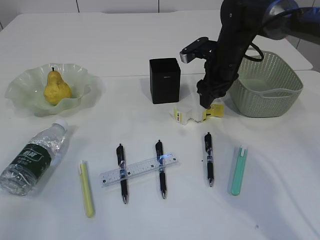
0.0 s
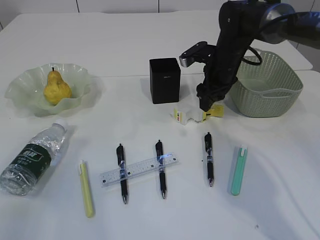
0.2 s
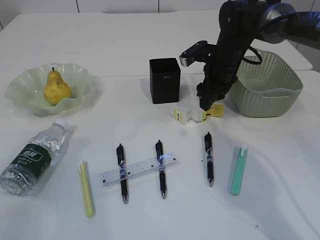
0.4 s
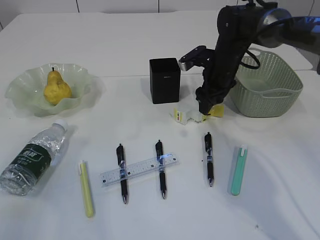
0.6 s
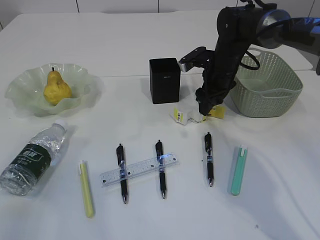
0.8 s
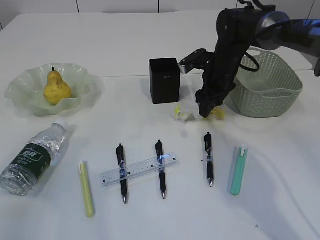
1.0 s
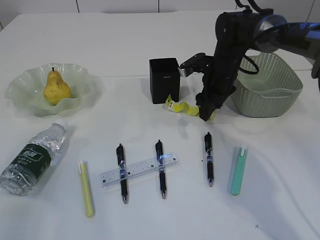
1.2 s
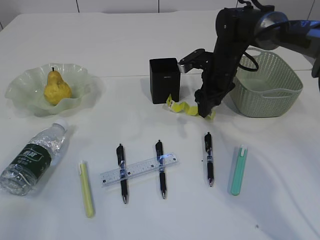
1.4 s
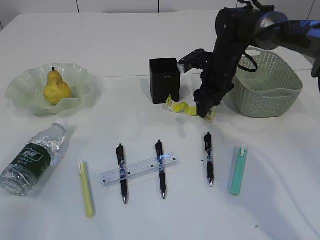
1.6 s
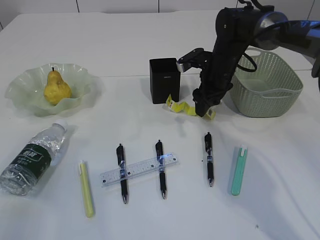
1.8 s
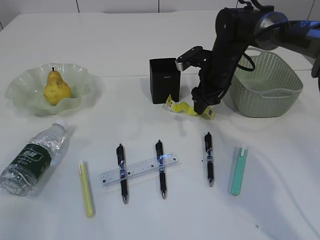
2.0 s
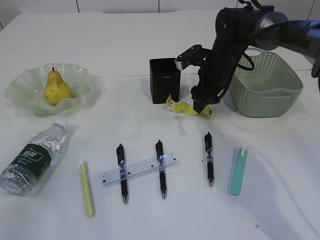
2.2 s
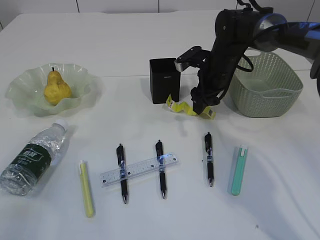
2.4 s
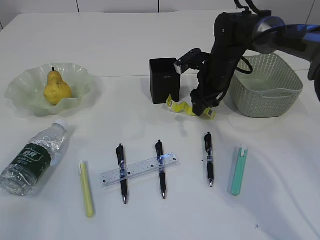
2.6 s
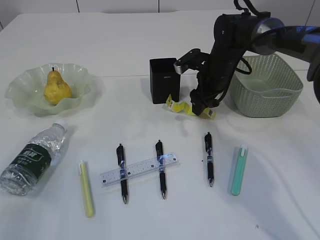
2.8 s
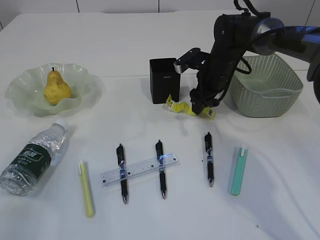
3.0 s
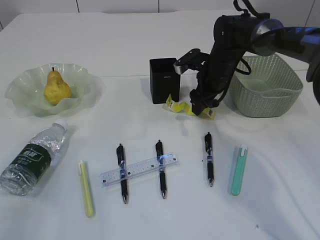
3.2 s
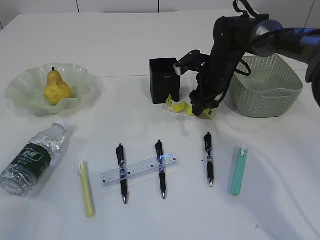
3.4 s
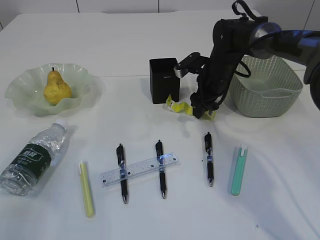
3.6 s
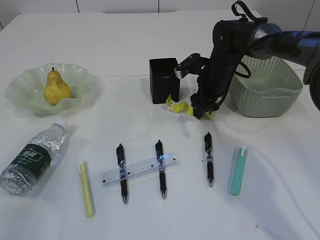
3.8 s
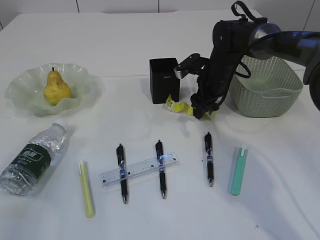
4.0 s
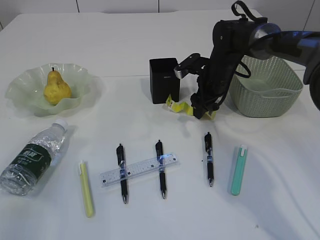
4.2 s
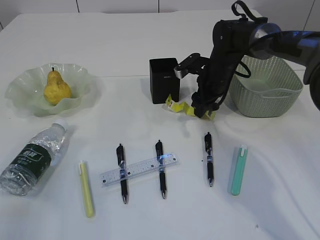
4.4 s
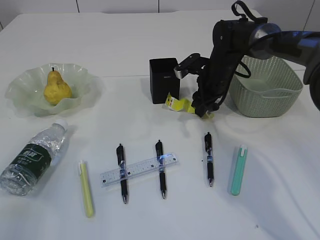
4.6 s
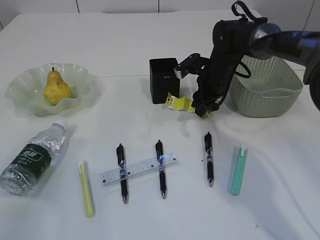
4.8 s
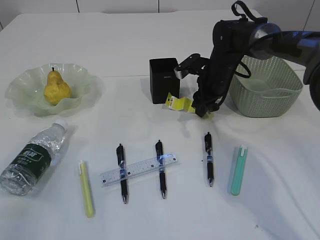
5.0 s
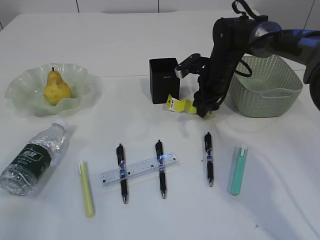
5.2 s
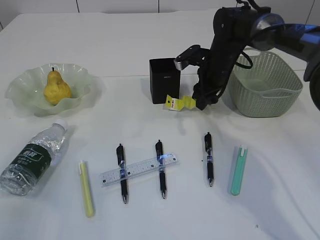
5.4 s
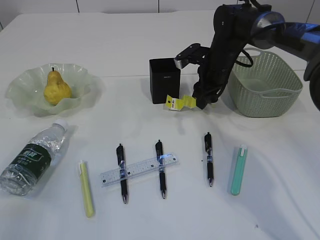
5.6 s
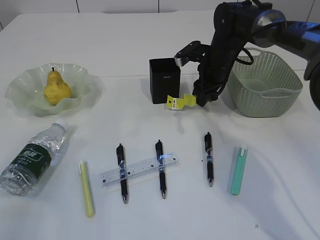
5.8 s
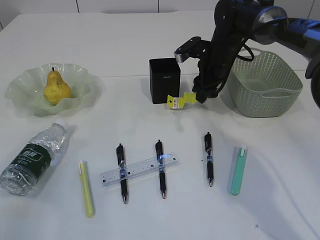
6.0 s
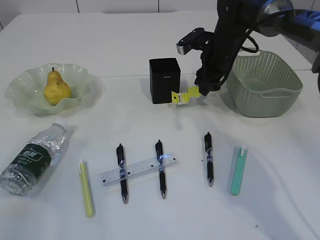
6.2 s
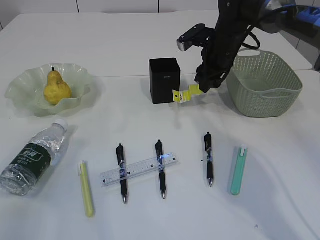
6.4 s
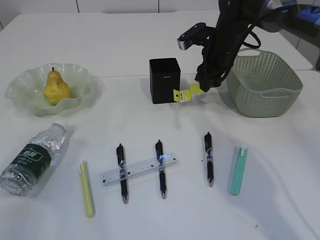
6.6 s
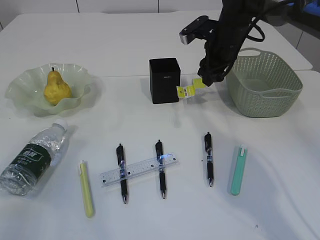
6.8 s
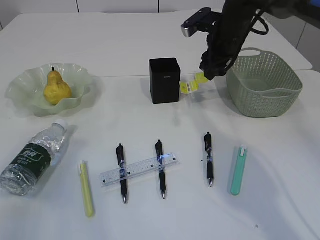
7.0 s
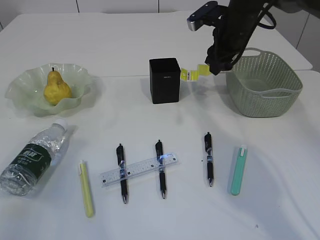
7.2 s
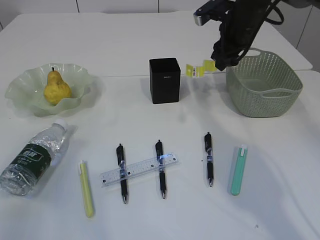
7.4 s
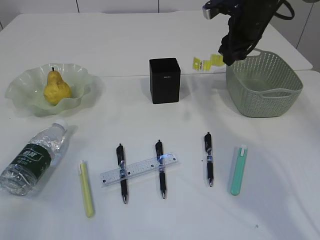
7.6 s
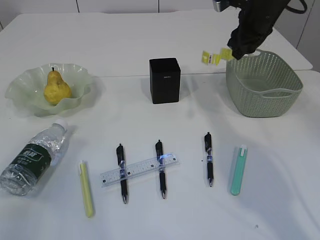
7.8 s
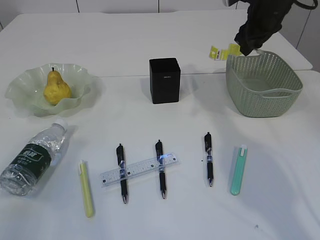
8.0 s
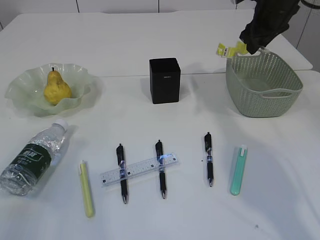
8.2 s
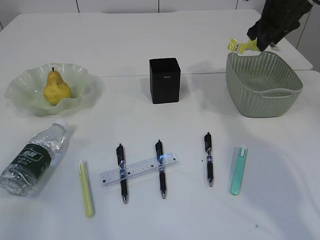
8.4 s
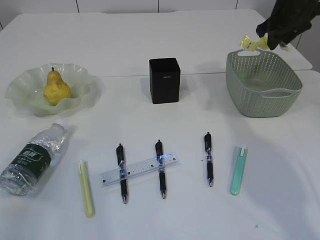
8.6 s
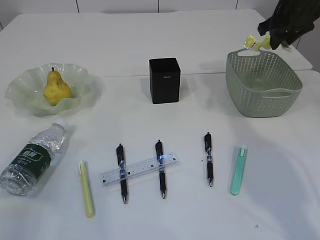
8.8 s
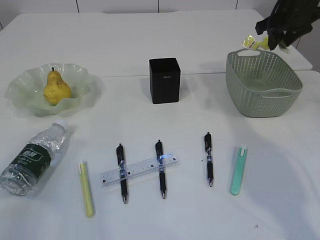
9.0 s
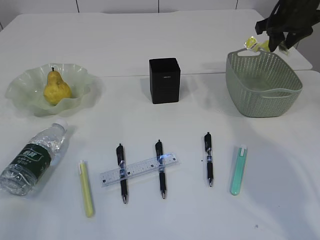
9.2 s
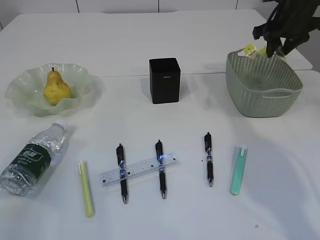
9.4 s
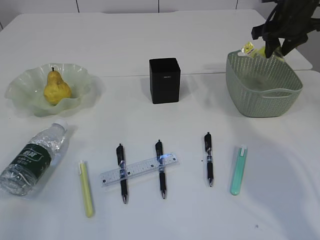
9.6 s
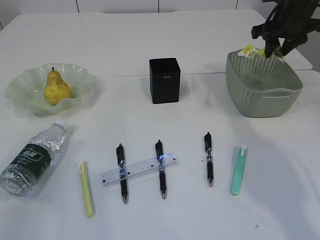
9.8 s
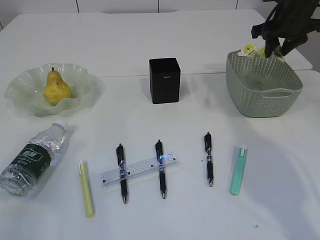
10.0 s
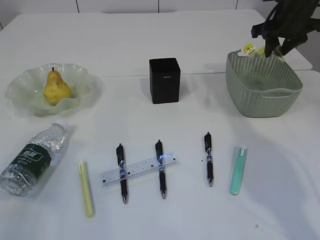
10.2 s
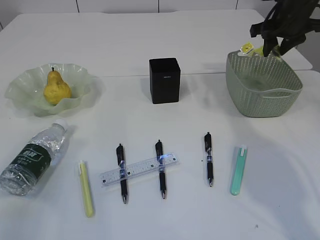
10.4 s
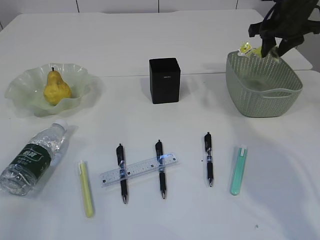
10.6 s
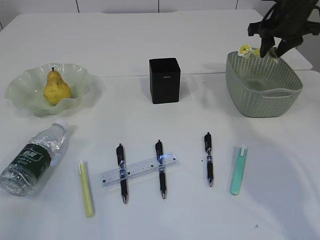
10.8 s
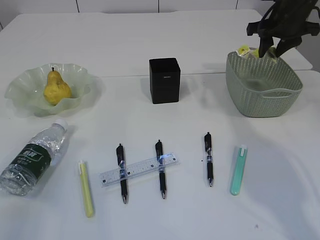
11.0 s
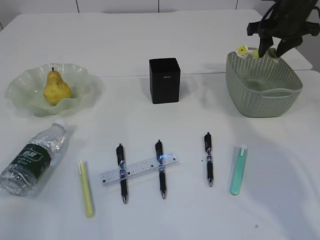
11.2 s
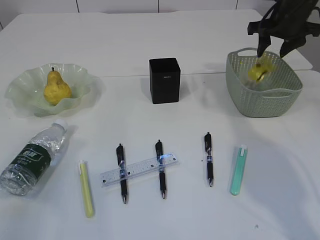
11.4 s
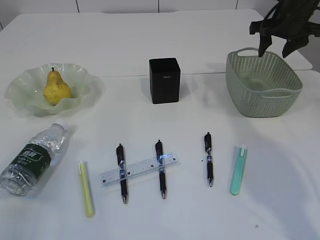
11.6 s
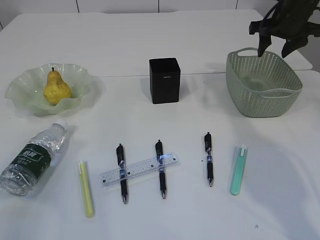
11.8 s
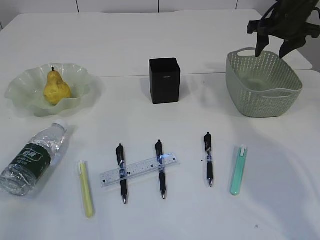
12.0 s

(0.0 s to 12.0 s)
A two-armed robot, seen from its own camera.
Step, 0.0 s - 7.6 s: Pick up the plastic.
0.0 s - 3.0 s: There are only small adjustments of the grippers.
3.0 s - 4.4 s: The two grippers keep their place.
4.4 s - 6.0 s: The grippers stay close to where they were, moving slightly.
6.0 s - 7.6 s: The right gripper travels upward and to the right by roughly 10 cm.
7.6 s - 9.0 s: The right gripper is displaced to the right by approximately 10 cm.
9.0 s - 12.0 s: The grippers move only a little.

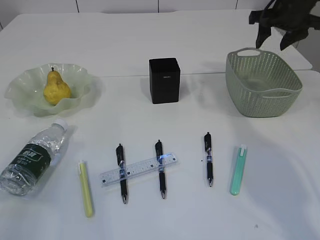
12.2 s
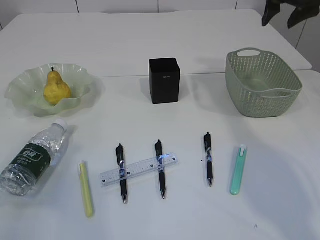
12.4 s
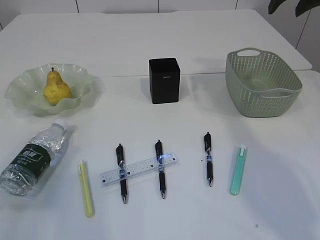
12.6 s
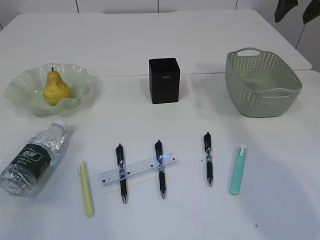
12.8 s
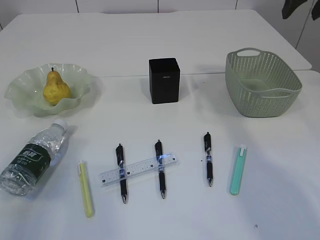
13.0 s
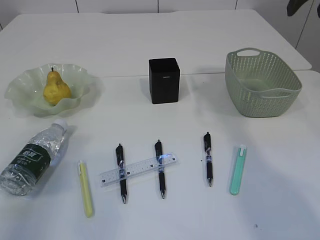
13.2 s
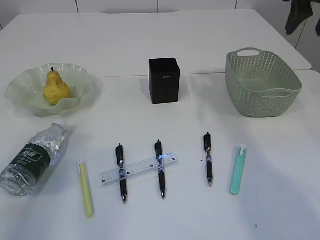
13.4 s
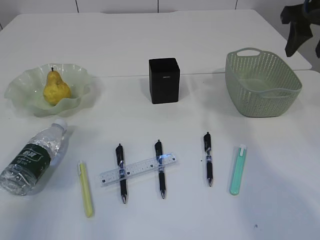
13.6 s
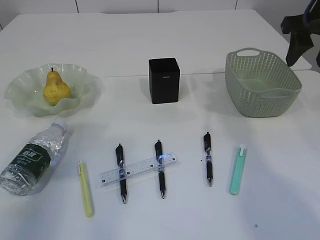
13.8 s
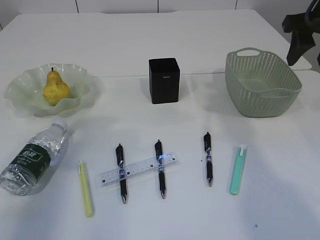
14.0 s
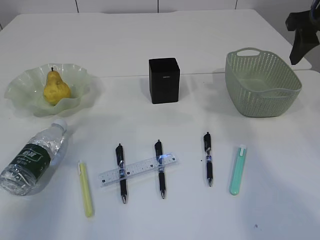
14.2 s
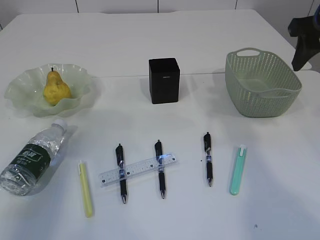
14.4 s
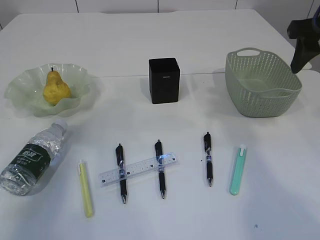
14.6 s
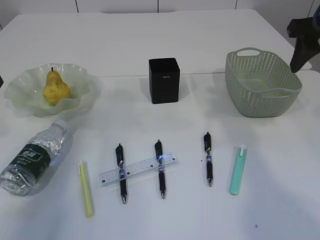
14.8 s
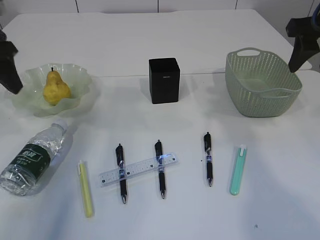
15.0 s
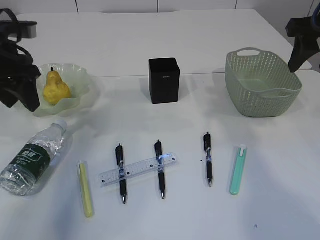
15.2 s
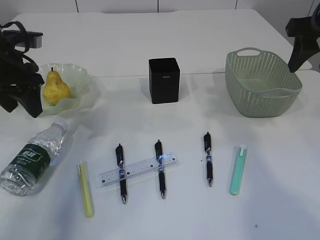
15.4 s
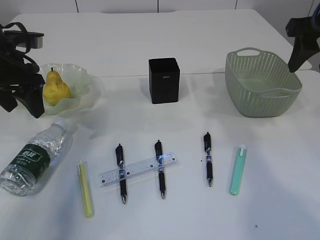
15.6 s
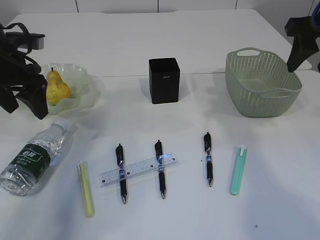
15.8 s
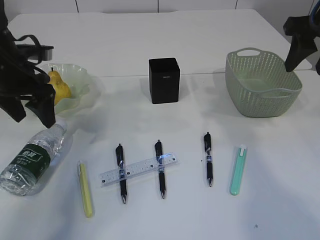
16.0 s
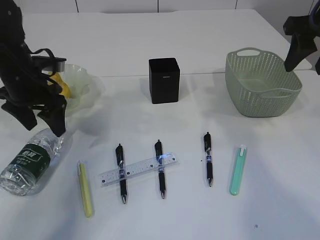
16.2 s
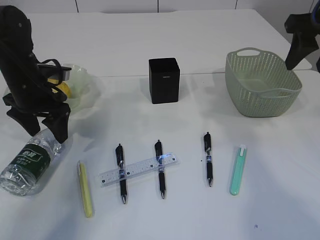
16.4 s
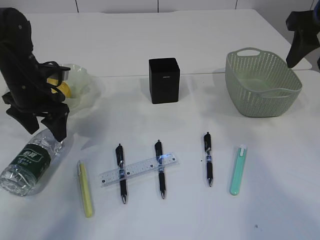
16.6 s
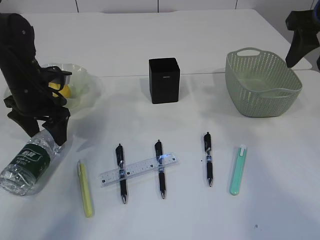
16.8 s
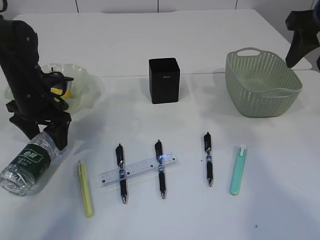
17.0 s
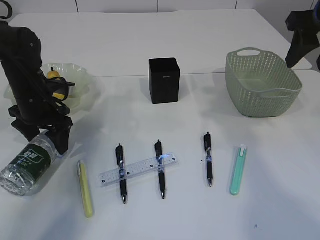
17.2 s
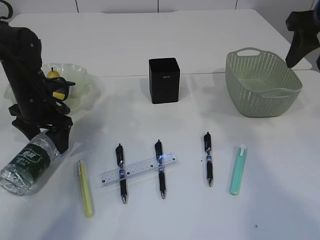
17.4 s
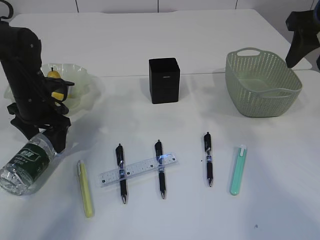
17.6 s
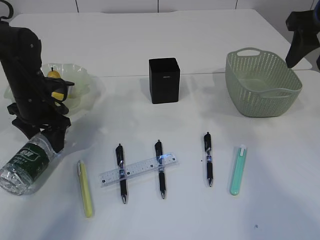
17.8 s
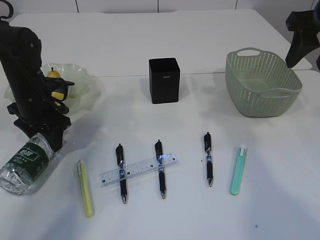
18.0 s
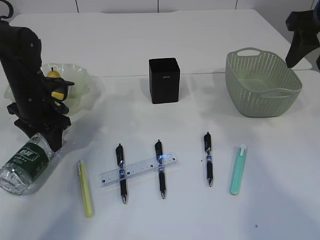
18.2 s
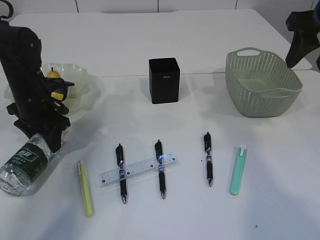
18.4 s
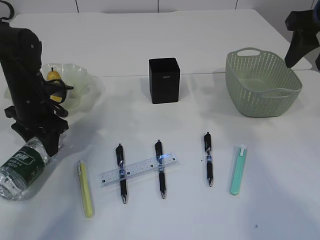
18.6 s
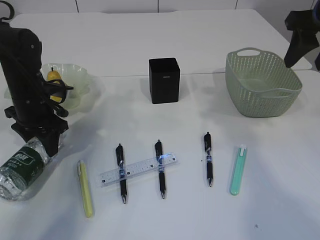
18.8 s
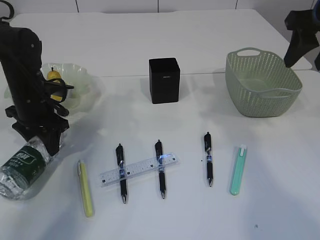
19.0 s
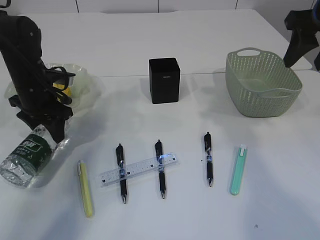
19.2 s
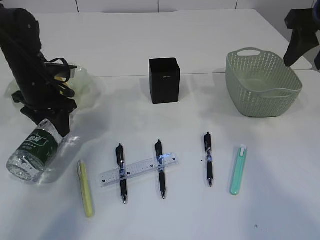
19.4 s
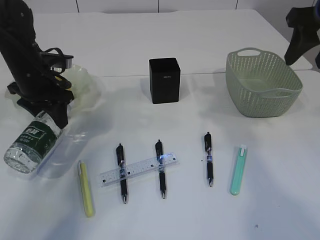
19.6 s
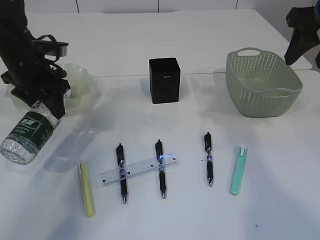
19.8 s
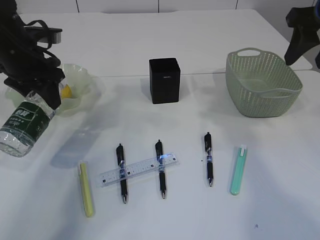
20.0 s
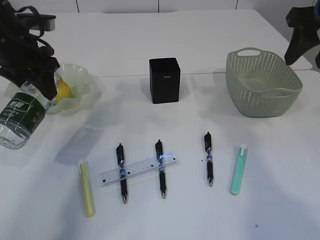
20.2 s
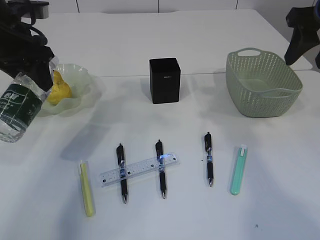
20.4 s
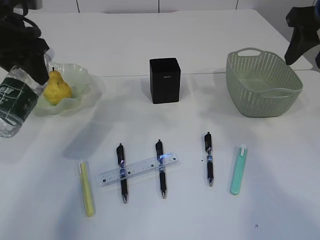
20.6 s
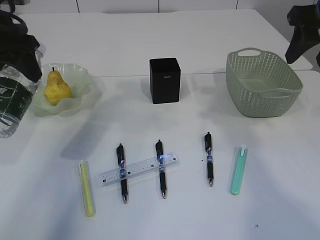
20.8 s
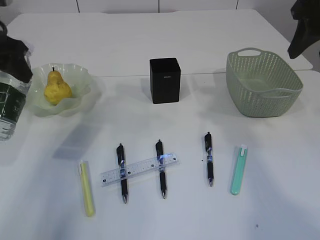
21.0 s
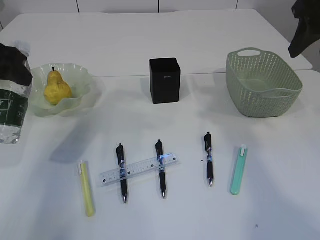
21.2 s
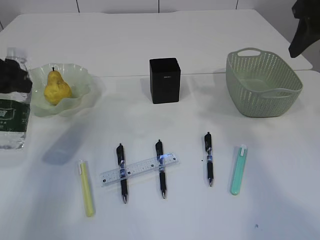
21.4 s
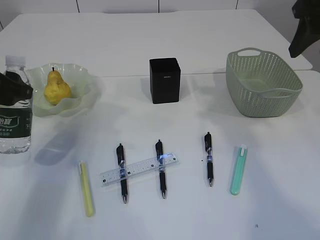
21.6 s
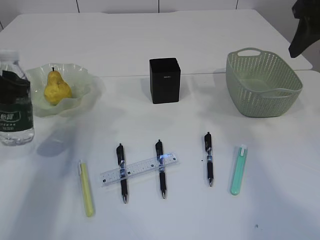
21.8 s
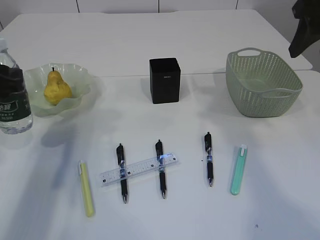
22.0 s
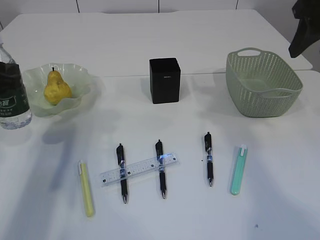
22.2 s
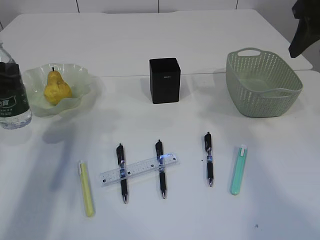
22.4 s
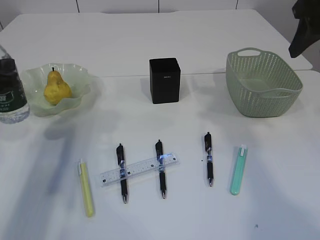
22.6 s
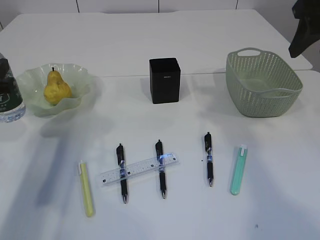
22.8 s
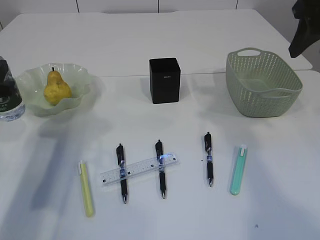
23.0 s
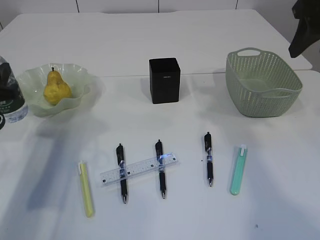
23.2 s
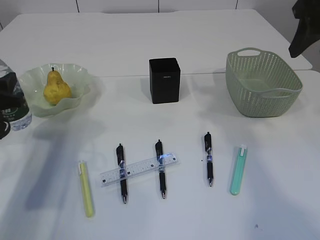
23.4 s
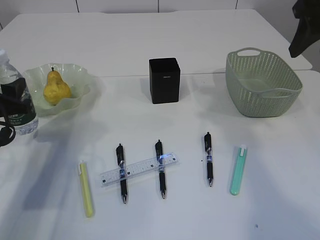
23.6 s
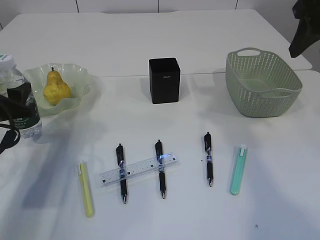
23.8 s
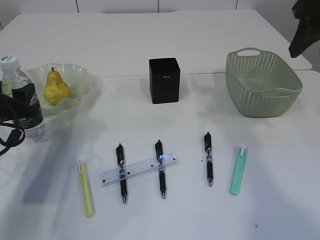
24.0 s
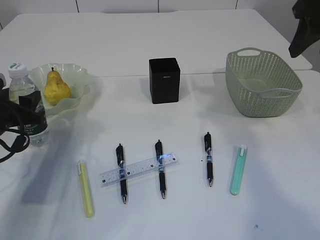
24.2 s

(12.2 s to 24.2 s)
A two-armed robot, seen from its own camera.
Step, 12.4 s - 19.8 s: Pick up the bottle with the left arm.
12.2 s - 13.8 s: The left gripper heads upward, covering about 5 cm. Meanwhile the right gripper travels backward by some 10 cm.
13.8 s - 15.2 s: The left gripper goes about 15 cm forward.
15.2 s - 16.6 s: The left gripper shifts about 10 cm downward, and opens its fingers.
16.6 s - 18.2 s: The left gripper closes.
18.2 s - 19.8 s: The left gripper is displaced upward by roughly 5 cm.
19.8 s - 21.2 s: The left gripper moves upward and backward, roughly 10 cm.
21.2 s - 22.6 s: The left gripper shifts about 5 cm downward.
22.6 s - 24.2 s: The left gripper is displaced downward by about 10 cm.
